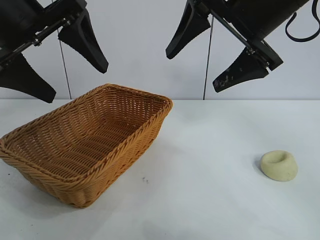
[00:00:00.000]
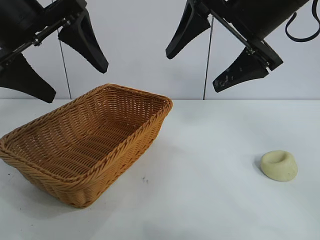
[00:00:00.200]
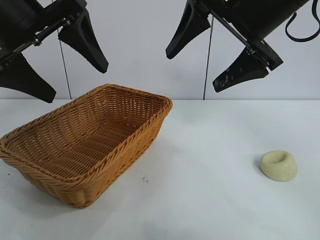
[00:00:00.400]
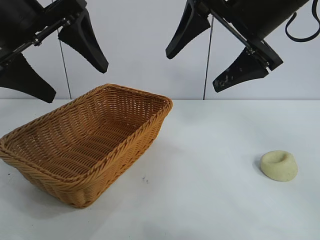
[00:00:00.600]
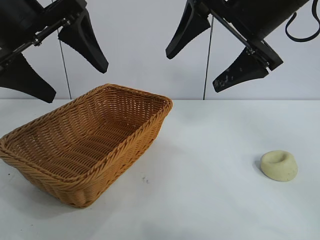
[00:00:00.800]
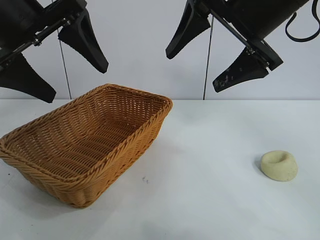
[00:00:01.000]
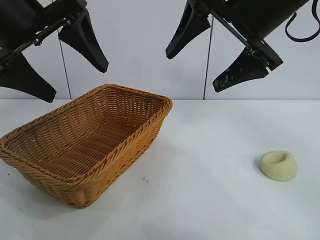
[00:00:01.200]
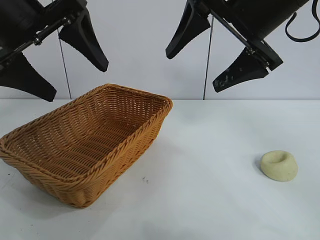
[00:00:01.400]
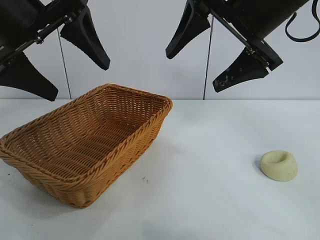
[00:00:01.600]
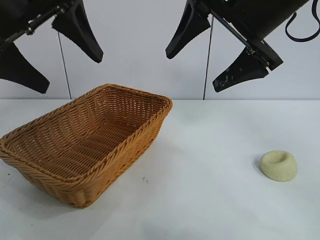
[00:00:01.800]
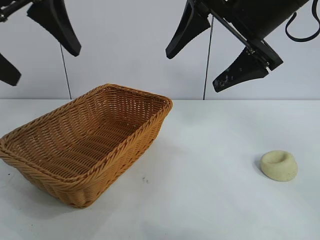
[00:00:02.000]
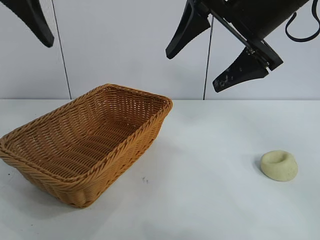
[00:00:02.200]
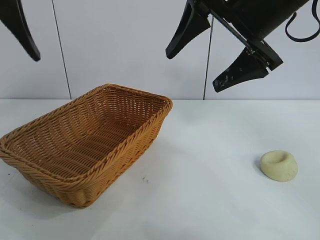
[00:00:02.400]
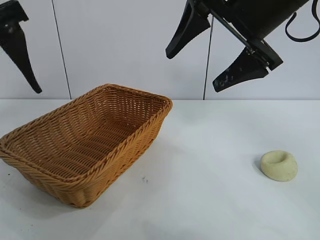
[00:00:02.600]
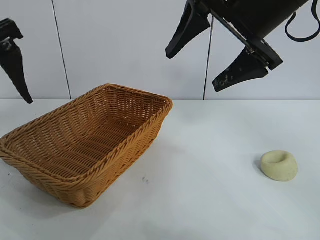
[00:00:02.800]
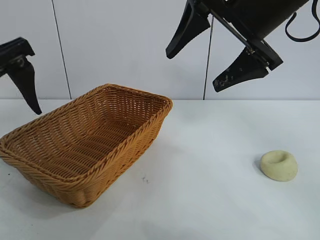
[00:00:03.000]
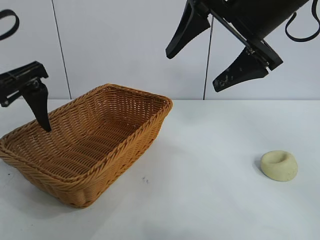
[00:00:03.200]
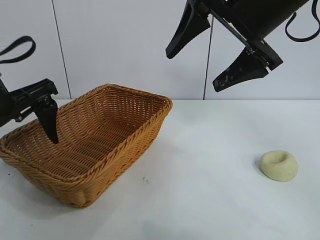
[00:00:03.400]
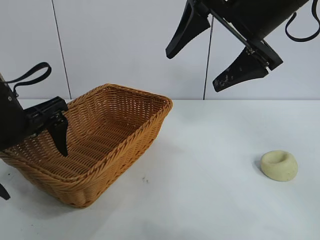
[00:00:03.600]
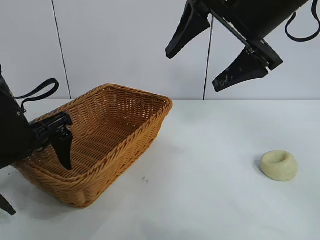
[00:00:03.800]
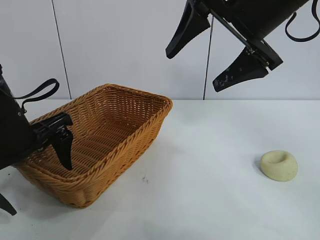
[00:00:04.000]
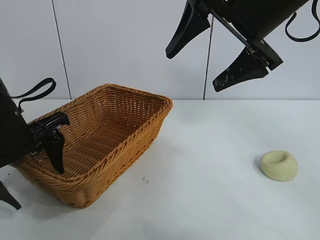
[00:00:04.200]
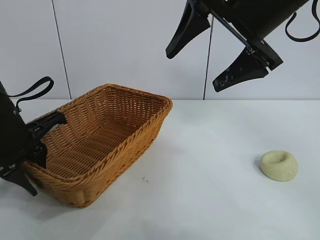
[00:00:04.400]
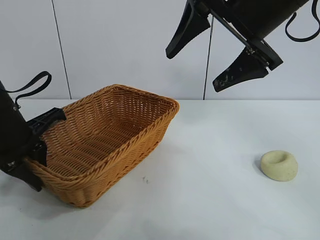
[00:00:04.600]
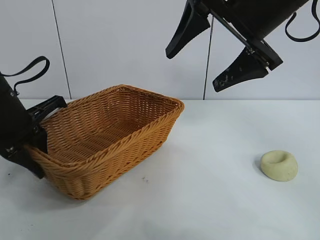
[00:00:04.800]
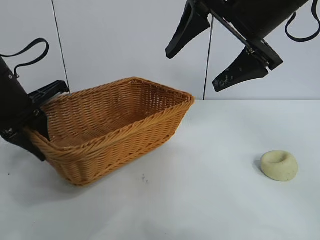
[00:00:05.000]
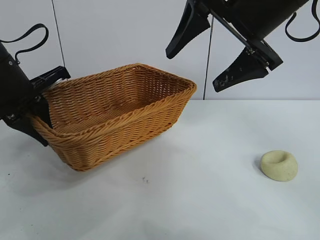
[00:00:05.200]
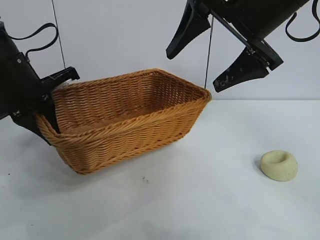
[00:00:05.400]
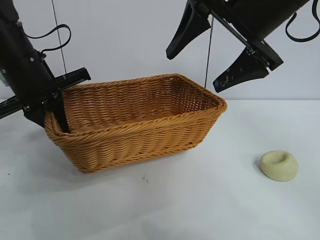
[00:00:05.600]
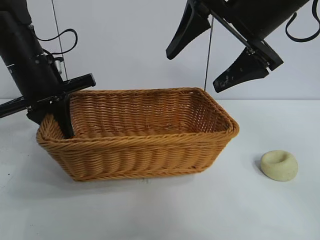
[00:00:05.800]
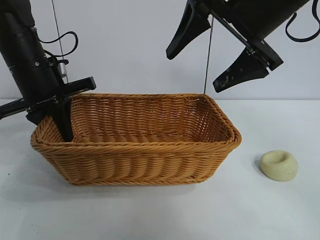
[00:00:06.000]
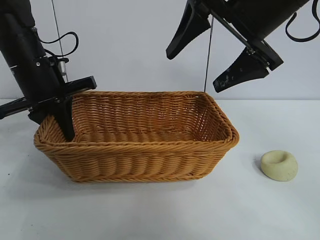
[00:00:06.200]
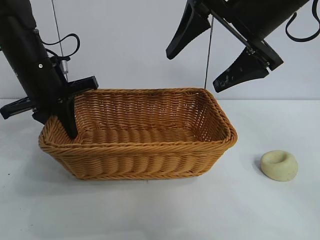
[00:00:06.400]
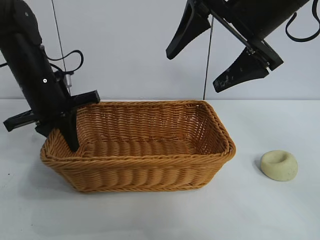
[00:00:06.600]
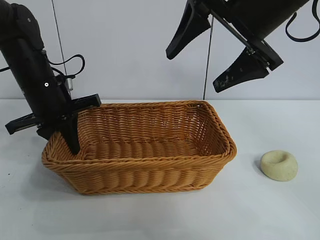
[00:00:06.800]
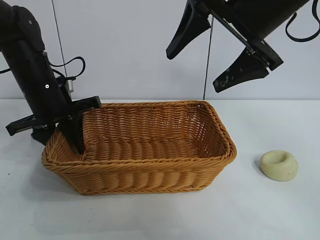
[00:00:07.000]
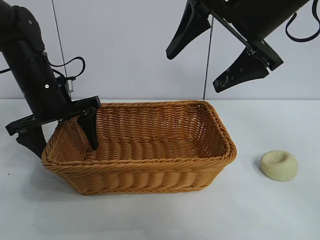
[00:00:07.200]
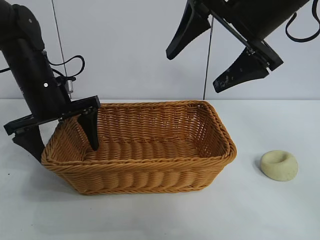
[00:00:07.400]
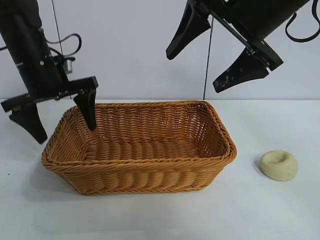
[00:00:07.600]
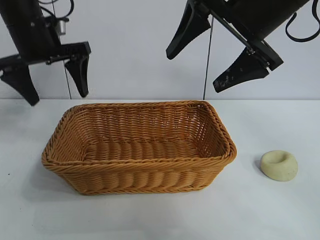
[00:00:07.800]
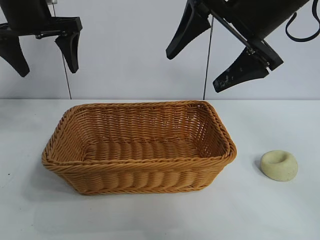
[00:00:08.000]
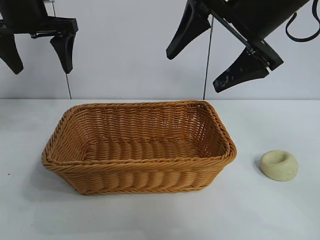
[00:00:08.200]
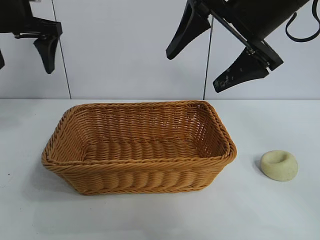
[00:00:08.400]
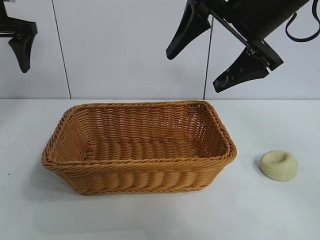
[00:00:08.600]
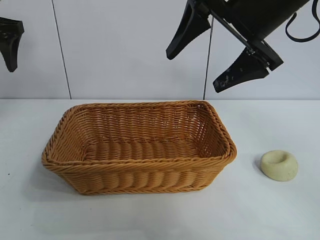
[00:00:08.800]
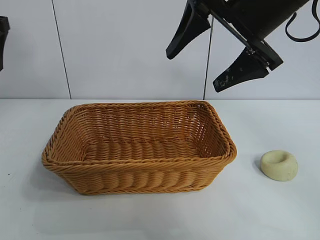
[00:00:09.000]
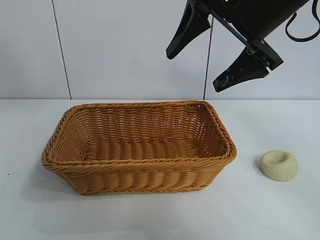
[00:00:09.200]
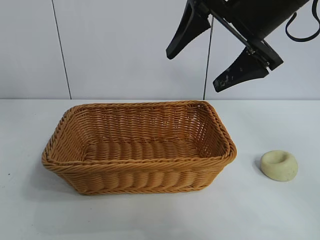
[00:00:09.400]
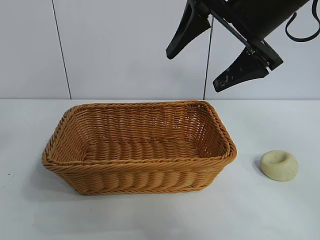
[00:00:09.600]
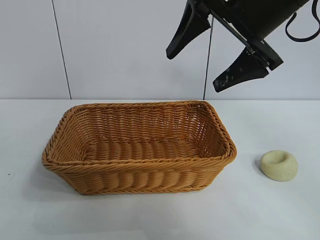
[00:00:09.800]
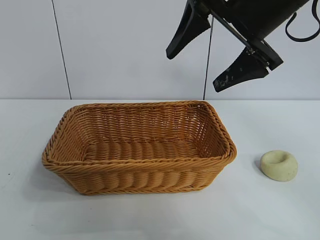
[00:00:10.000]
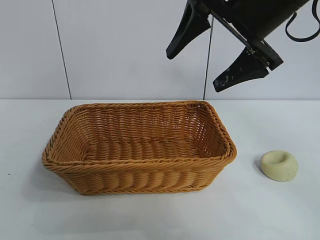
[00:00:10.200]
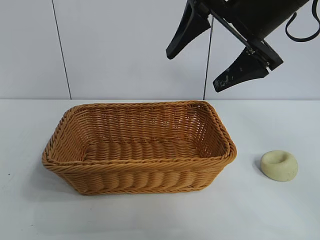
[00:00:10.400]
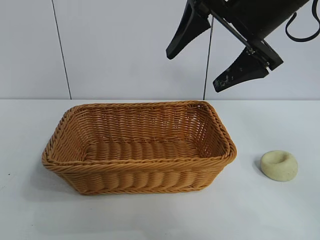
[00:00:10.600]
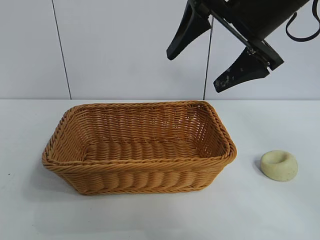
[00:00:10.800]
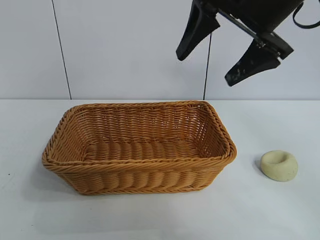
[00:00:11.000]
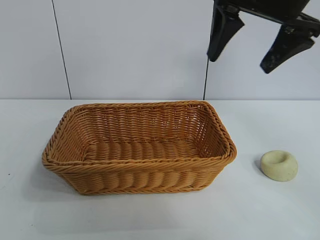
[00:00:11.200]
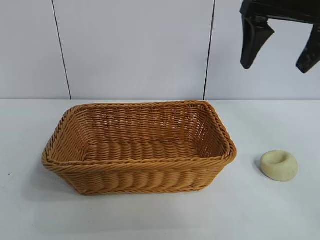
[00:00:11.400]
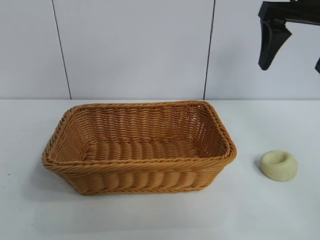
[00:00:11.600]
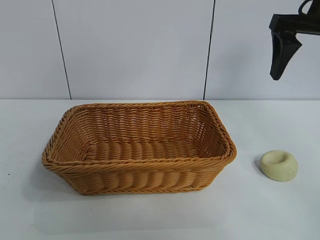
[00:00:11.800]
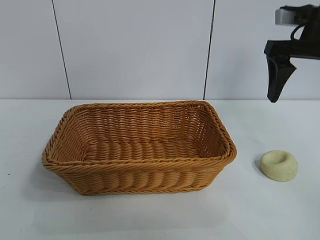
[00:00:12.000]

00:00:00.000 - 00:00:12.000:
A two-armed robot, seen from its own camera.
Task of the whole recording: pick up the egg yolk pastry and put it into the basket.
Step, 00:00:01.400 - 00:00:04.400: Grasp the basket with left gripper.
Step, 00:00:04.600 - 00:00:07.000: Place the basket in the center of view with left gripper.

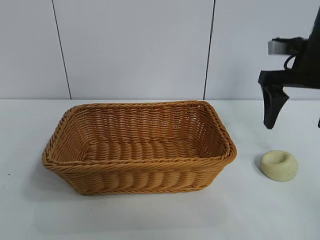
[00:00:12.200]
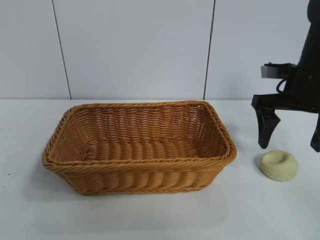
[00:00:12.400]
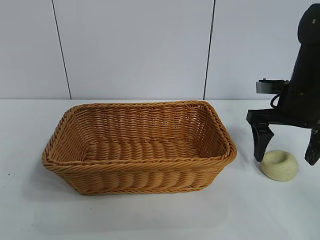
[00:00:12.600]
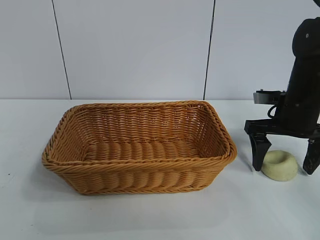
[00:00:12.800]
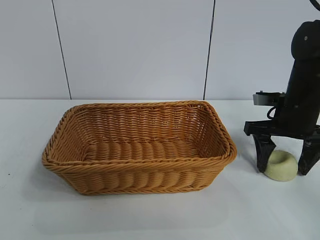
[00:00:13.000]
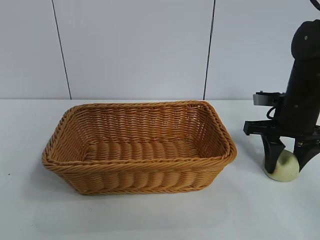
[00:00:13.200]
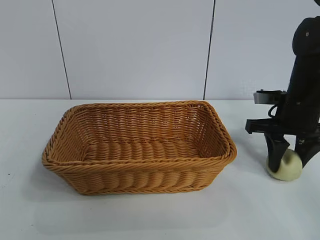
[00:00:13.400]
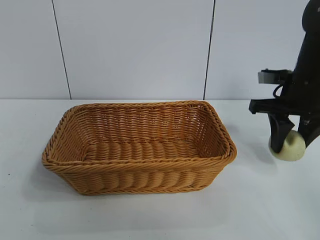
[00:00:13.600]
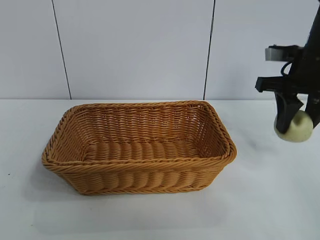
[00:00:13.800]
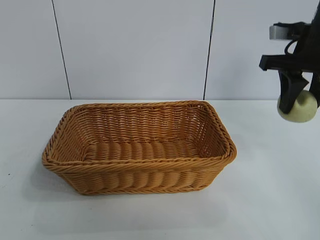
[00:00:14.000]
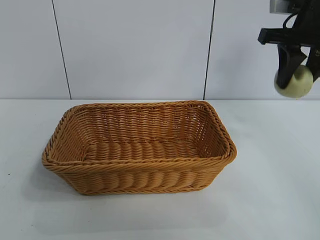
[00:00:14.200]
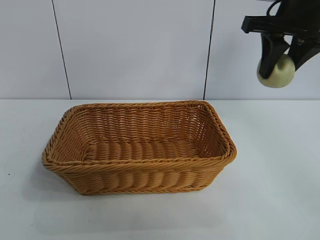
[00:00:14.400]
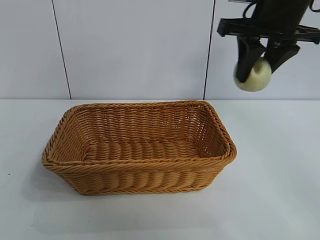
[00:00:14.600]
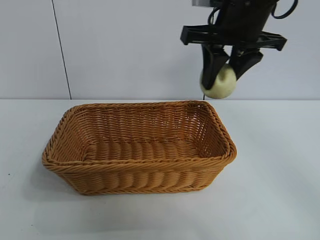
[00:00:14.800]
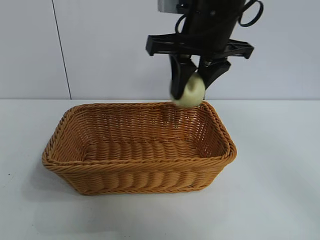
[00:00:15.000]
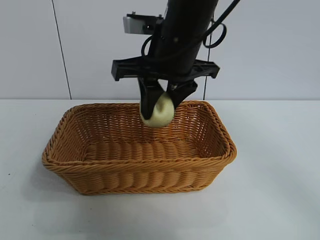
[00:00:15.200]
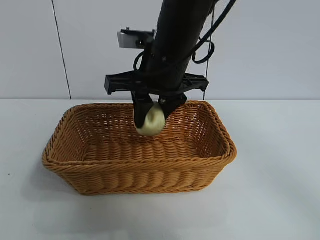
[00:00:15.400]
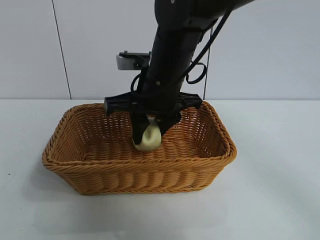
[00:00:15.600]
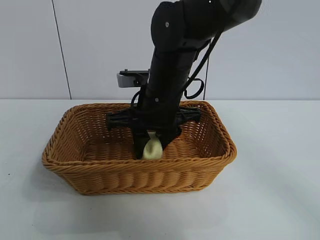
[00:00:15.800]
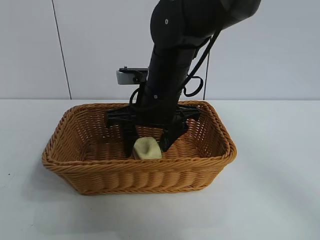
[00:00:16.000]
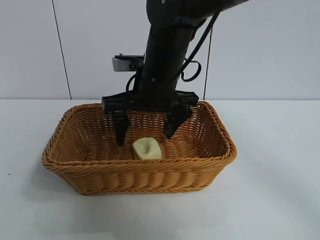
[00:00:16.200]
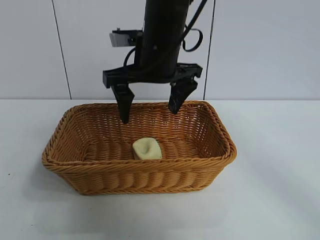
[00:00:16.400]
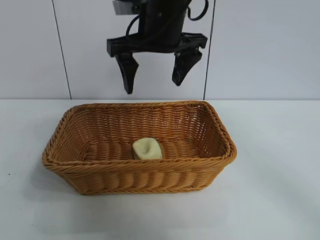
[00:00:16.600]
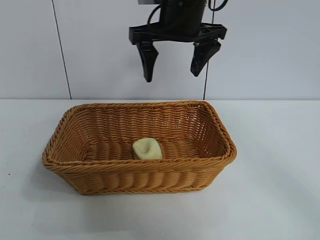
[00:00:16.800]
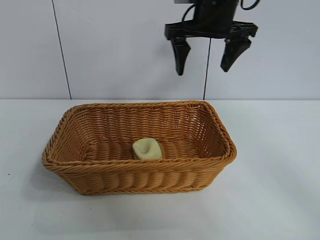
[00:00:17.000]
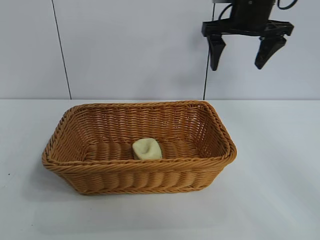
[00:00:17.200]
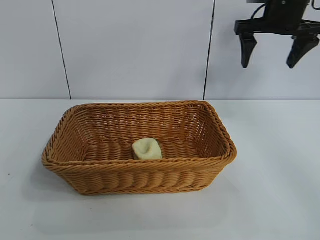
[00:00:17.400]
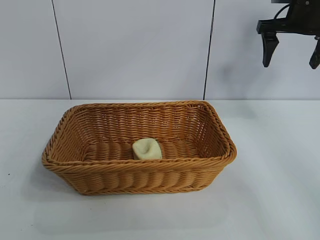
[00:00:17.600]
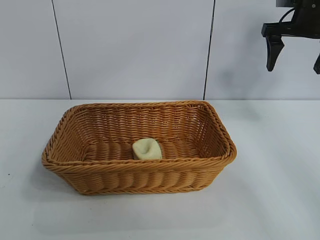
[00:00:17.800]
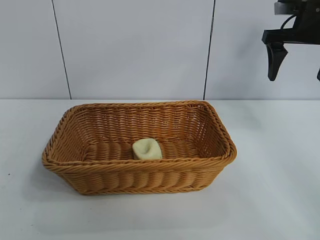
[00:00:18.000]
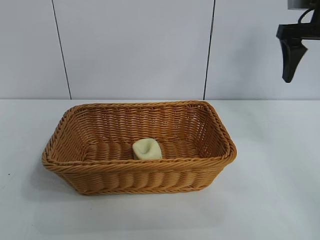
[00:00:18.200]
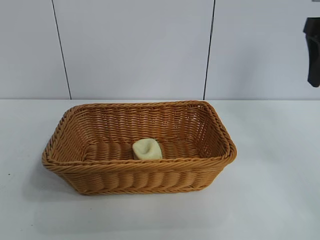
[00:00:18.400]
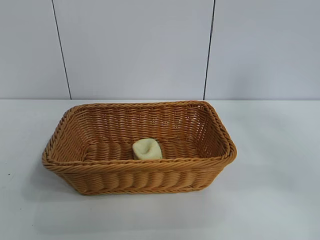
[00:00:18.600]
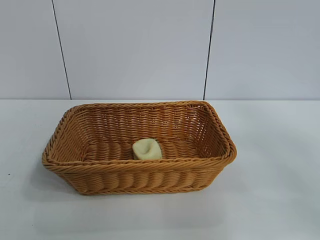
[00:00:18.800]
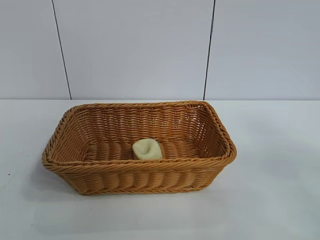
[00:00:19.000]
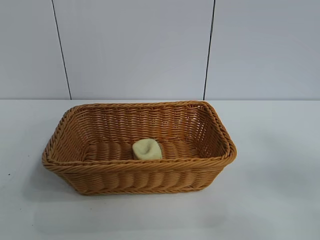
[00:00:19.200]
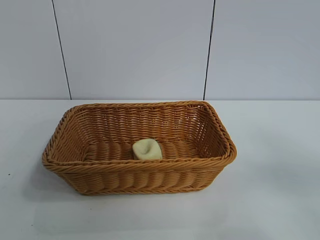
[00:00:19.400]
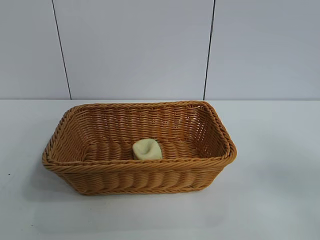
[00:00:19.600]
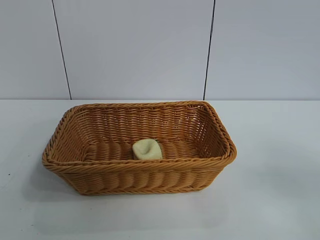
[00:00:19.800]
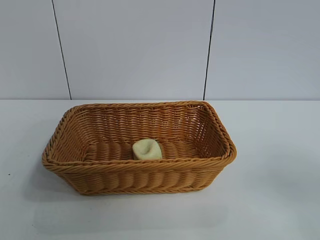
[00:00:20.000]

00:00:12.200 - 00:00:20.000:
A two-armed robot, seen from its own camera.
Task of the whole recording: pick up the egg yolk pastry and put it into the basket.
Step, 00:00:13.400 - 00:00:16.200: Place the egg yolk pastry in the basket with right gripper.
